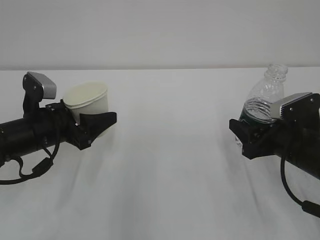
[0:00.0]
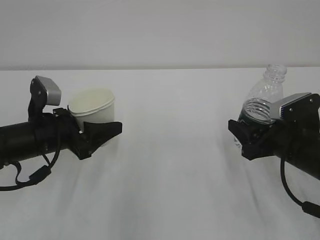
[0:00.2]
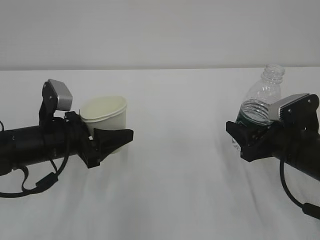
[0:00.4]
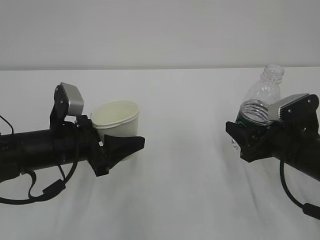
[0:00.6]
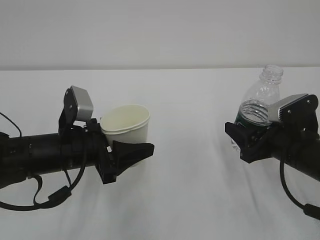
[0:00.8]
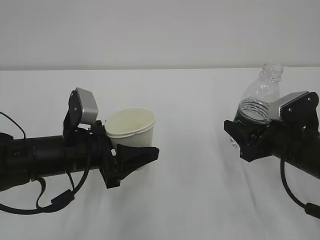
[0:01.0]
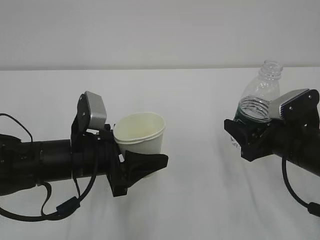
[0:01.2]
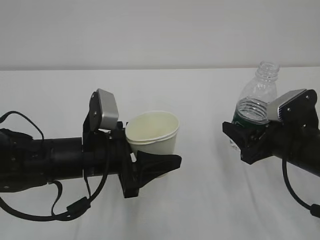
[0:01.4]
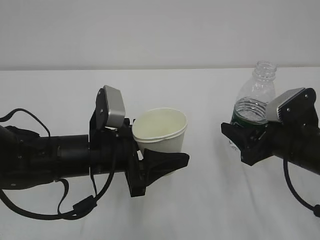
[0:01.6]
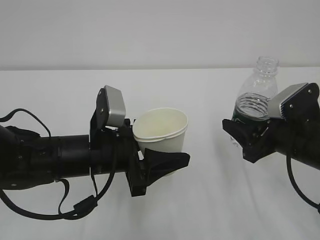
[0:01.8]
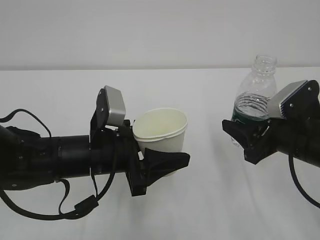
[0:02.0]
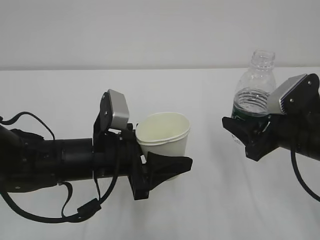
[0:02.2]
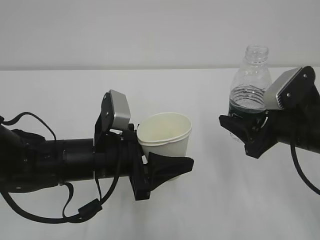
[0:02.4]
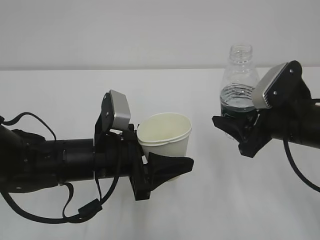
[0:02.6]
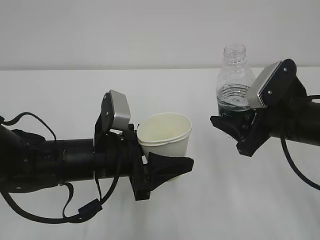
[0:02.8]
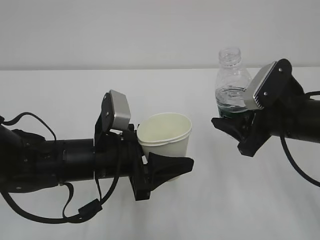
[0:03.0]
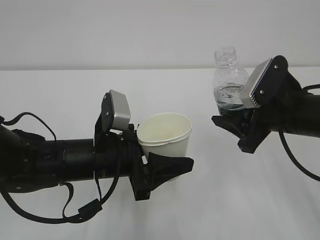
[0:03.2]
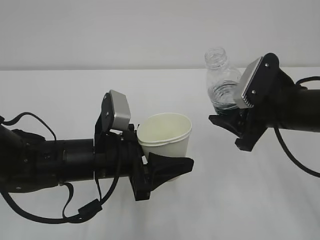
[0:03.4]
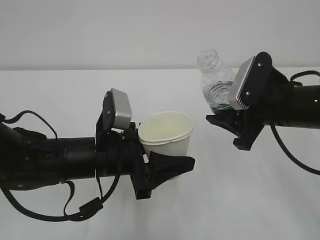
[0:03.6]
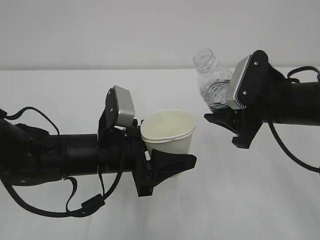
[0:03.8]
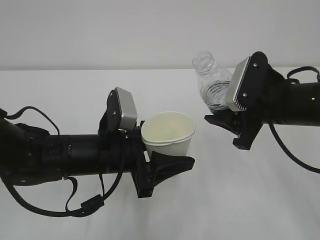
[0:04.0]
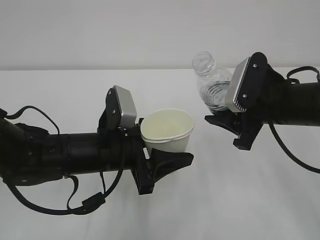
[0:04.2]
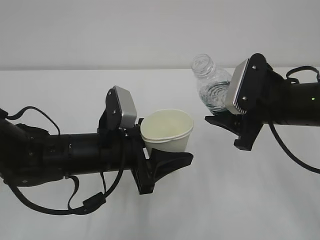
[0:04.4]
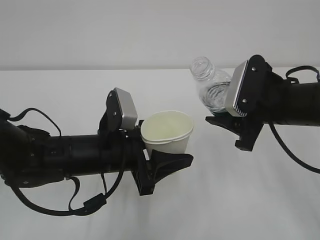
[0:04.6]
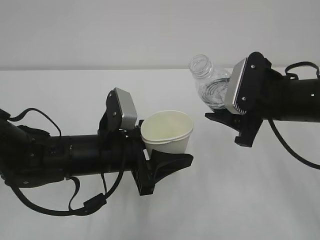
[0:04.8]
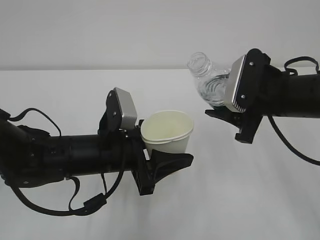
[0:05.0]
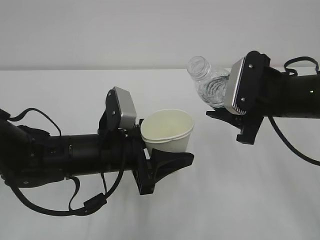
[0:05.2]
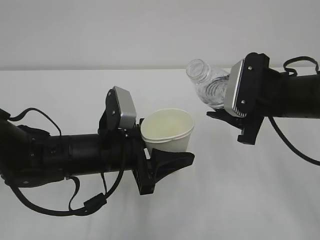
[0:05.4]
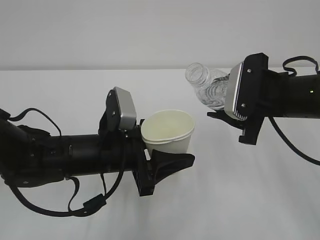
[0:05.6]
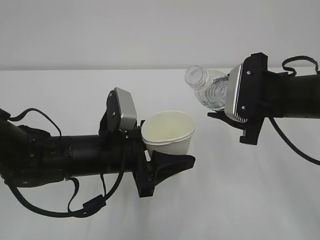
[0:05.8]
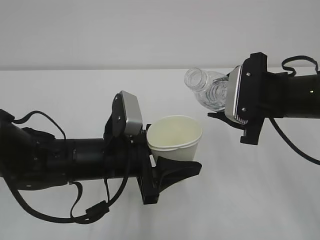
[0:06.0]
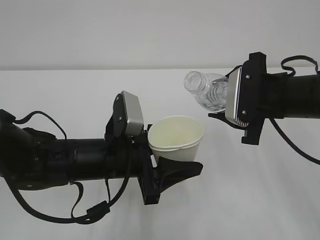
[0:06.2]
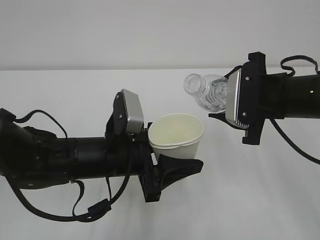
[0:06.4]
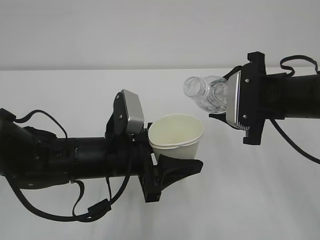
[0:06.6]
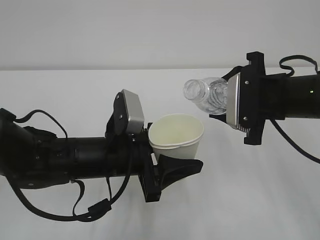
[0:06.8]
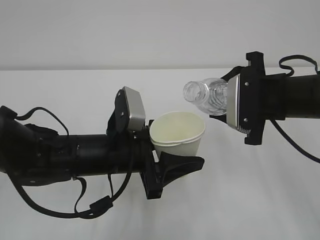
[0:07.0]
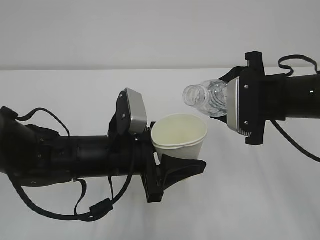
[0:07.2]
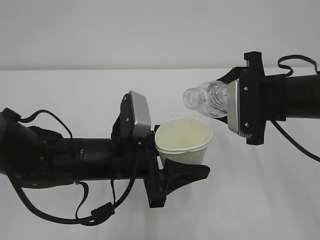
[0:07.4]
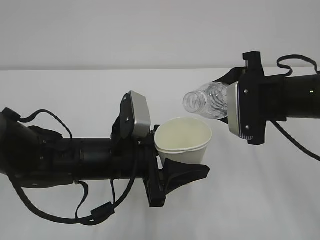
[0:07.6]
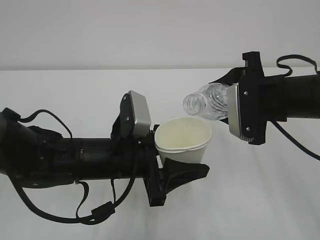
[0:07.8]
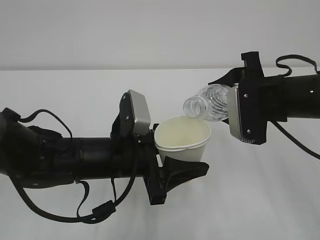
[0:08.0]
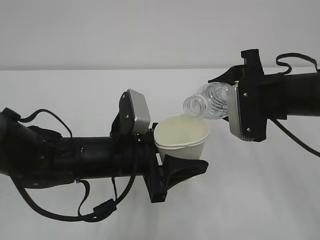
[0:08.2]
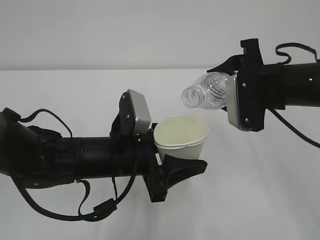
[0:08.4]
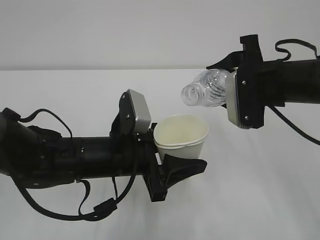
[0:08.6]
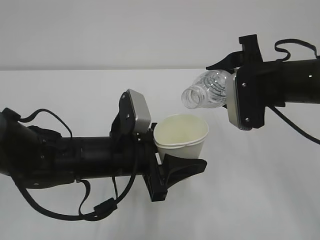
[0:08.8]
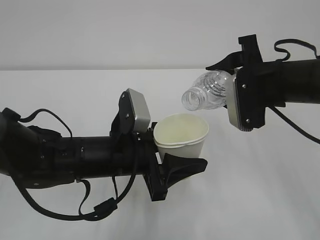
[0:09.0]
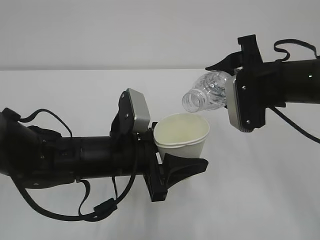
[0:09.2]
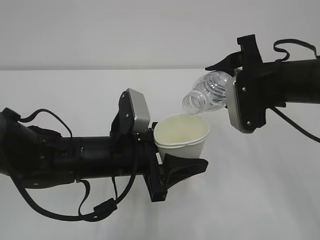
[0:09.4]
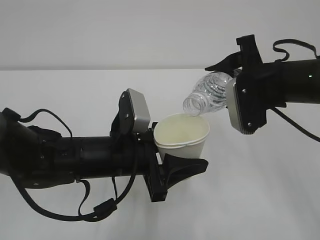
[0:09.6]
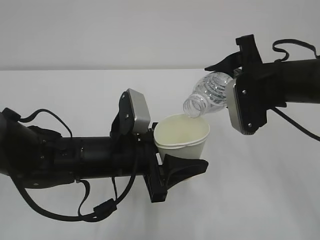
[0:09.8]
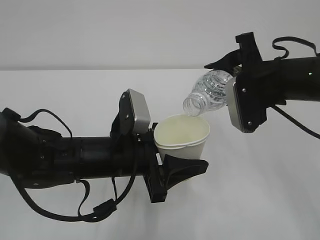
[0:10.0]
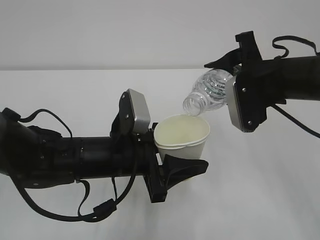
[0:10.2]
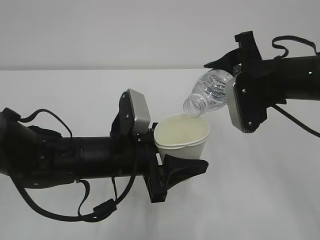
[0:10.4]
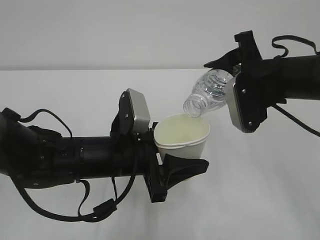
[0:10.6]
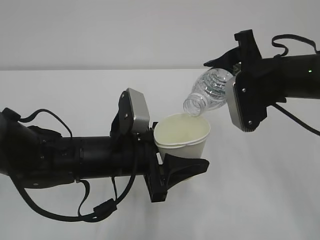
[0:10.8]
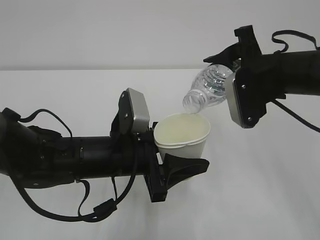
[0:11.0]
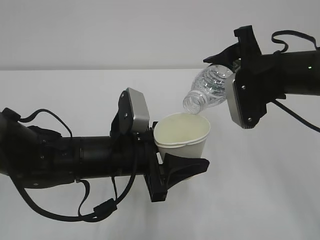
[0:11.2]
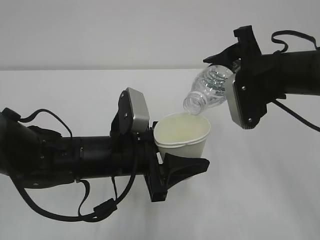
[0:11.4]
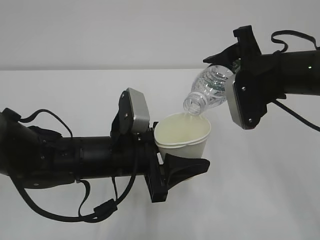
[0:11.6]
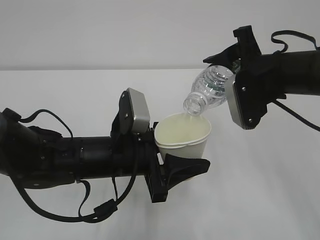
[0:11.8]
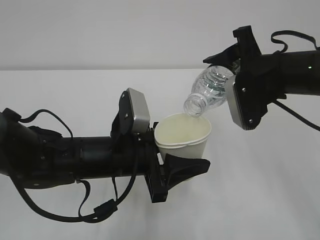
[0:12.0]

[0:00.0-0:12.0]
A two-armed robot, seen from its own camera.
0:00.0 to 0:01.6: The left gripper goes approximately 10 cm to the right and backward.
0:01.6 to 0:03.0: The right gripper heads upward, covering approximately 5 cm.
0:03.0 to 0:04.4: The grippers stay close to where they were, moving slightly.
0:04.4 to 0:06.0: The grippers make only small movements.
0:06.0 to 0:07.6: The grippers stay close to where they were, moving slightly.
0:07.6 to 0:10.4: The grippers stay close to where they were, moving slightly.
0:10.4 to 0:12.0: Both grippers stay put.

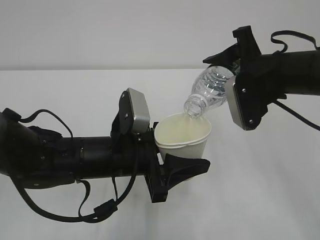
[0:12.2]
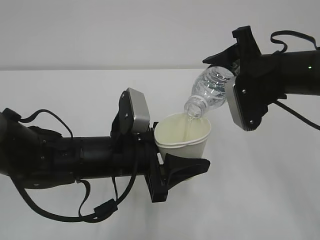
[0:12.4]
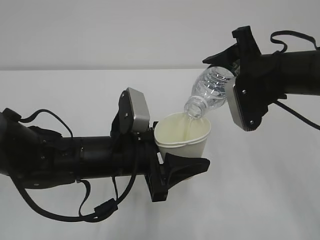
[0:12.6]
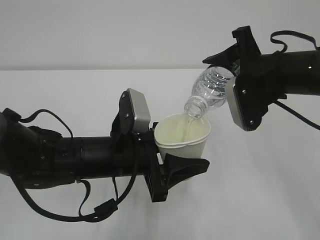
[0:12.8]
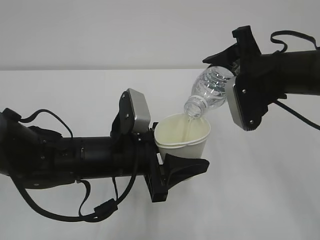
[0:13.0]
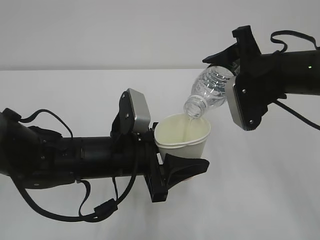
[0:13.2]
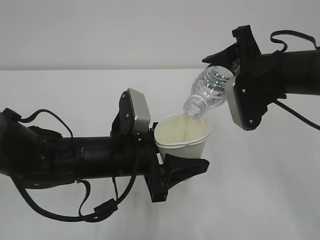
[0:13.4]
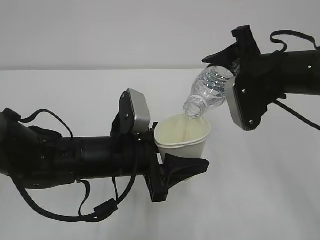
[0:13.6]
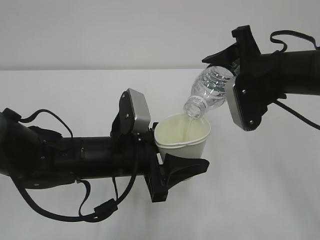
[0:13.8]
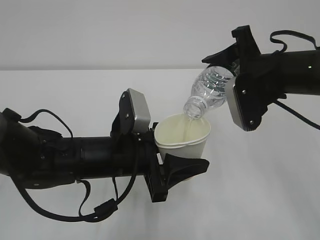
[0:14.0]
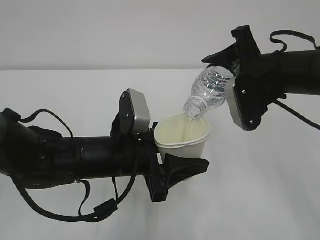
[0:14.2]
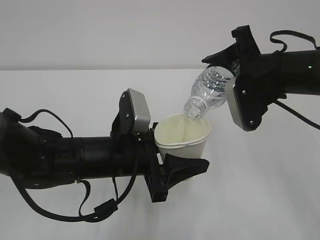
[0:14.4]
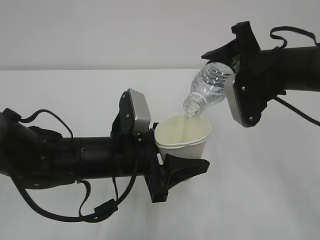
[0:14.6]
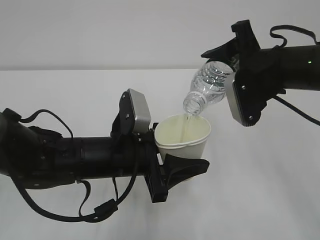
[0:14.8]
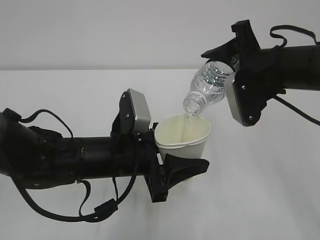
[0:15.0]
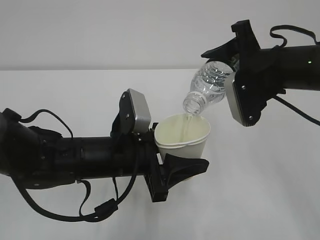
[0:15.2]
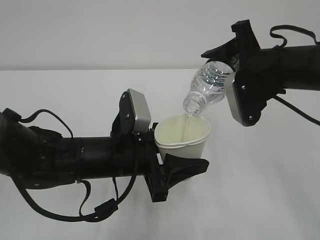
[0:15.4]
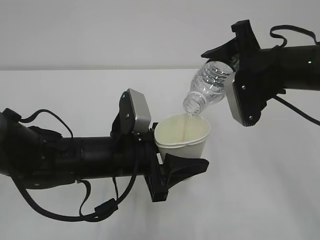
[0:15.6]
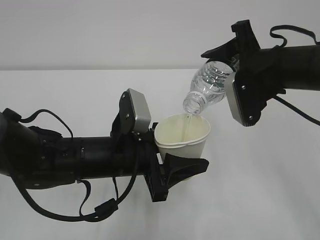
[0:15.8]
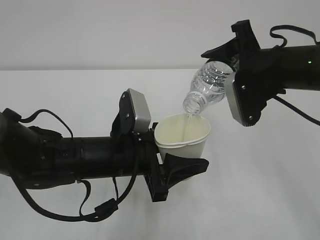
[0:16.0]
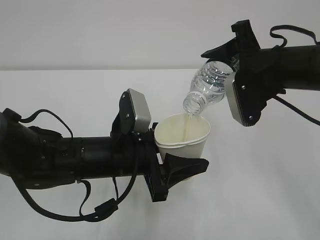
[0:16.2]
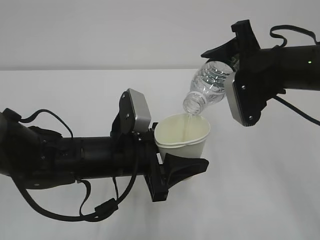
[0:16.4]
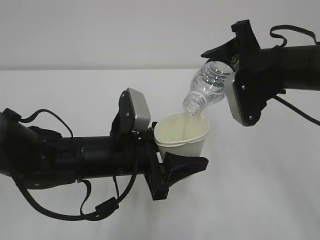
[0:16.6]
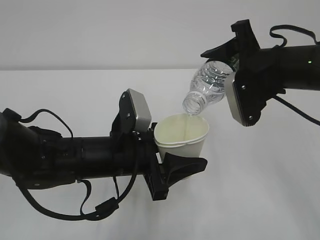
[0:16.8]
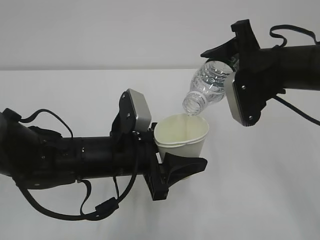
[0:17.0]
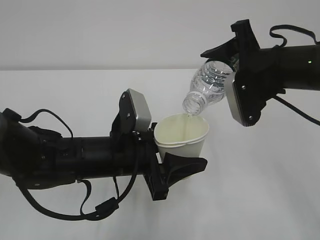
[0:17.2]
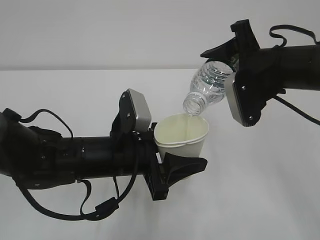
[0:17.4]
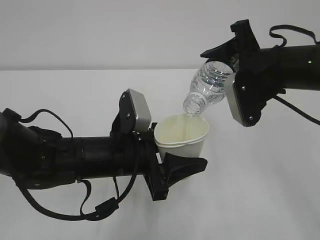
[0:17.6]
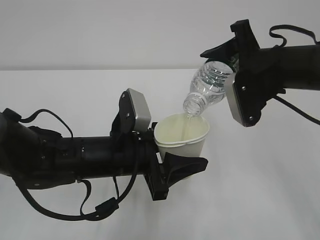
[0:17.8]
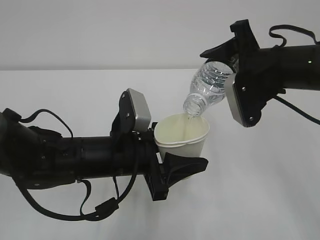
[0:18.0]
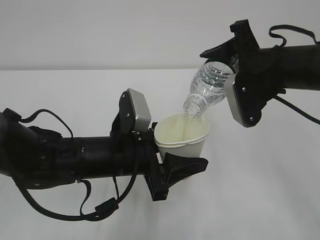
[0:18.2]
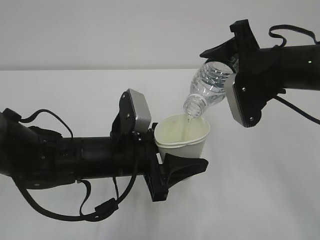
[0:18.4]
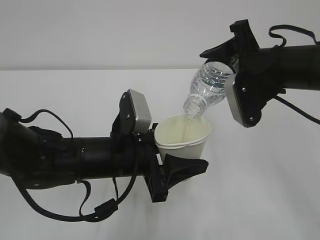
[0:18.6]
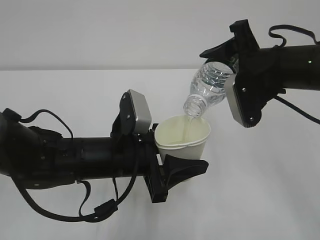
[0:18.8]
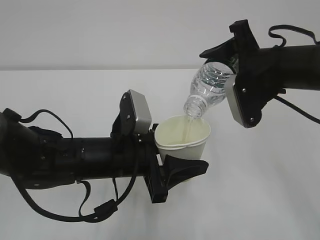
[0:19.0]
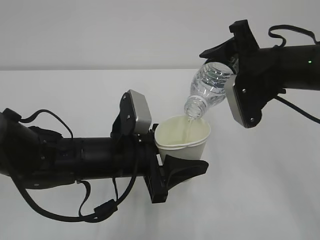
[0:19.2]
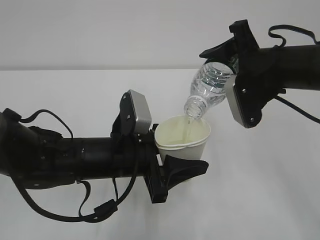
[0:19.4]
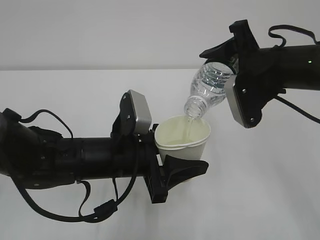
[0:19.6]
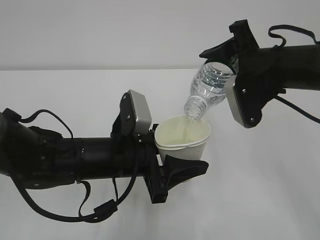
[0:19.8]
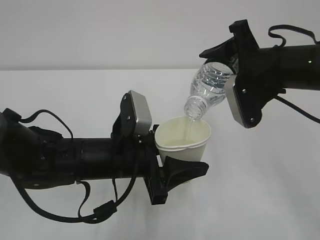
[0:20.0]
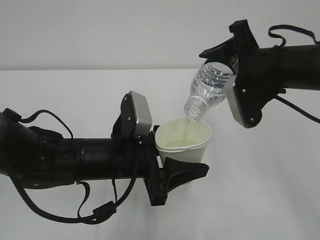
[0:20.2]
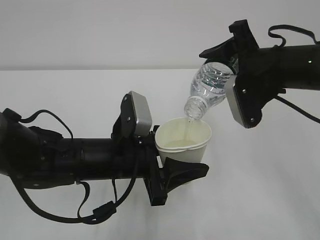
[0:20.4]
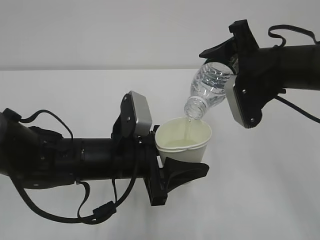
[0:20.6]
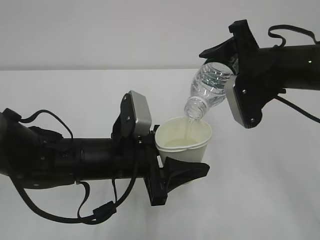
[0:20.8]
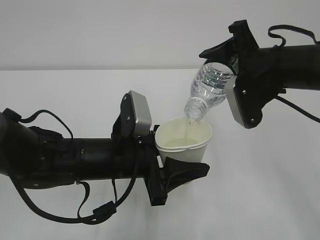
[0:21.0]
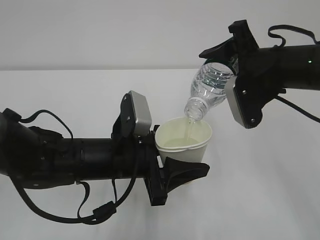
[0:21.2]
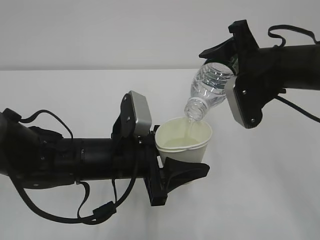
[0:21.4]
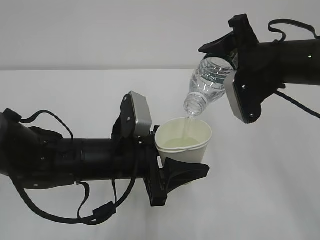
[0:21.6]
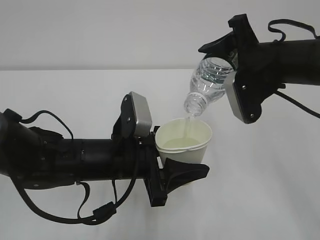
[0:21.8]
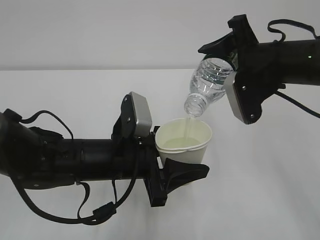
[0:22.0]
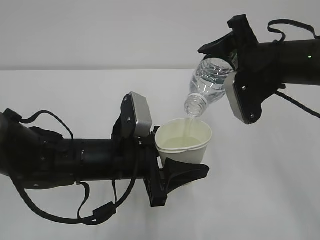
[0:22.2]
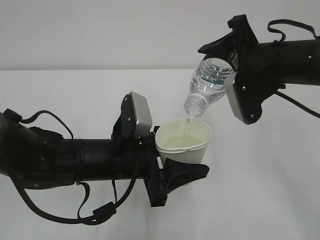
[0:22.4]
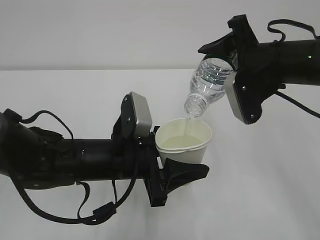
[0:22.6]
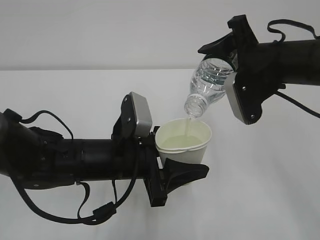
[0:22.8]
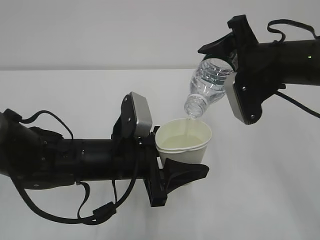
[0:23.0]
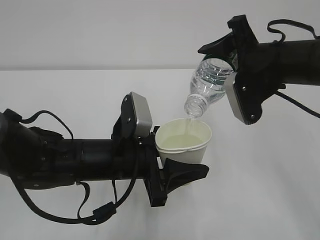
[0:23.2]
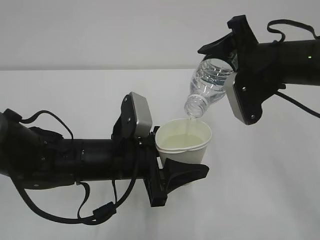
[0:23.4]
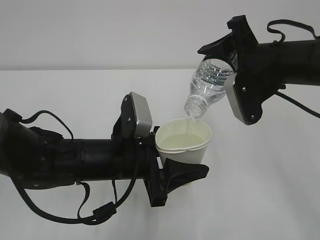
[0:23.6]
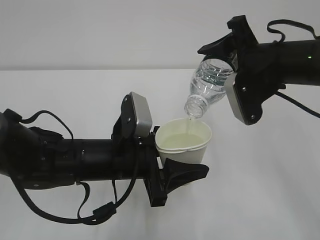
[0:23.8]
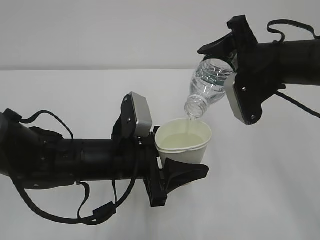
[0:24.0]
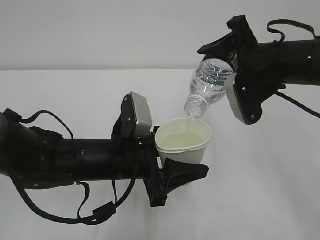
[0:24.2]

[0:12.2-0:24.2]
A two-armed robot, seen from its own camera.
0:12.2 to 0:16.6: Neither gripper changes place.
0:16.6 to 0:19.8: The two grippers keep their place.
0:19.8 to 0:24.2: The two grippers keep their place.
